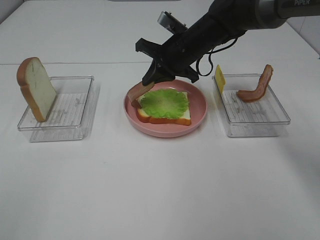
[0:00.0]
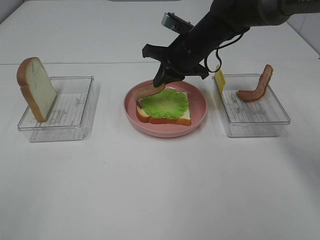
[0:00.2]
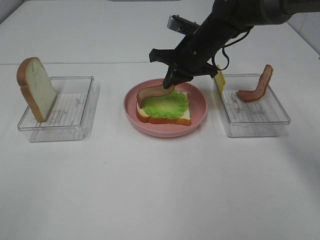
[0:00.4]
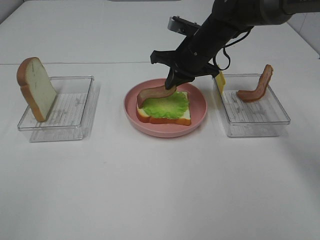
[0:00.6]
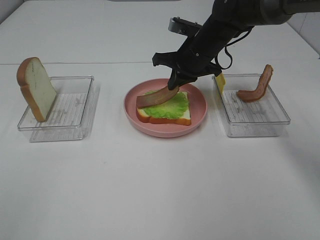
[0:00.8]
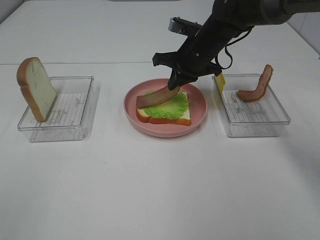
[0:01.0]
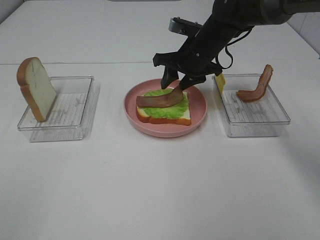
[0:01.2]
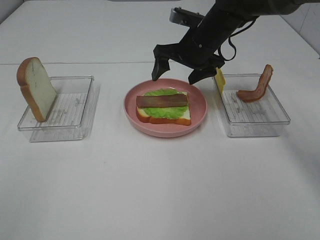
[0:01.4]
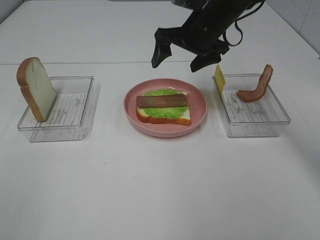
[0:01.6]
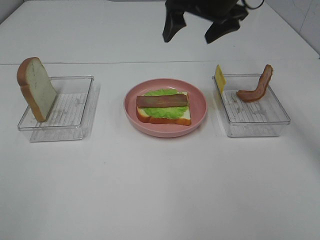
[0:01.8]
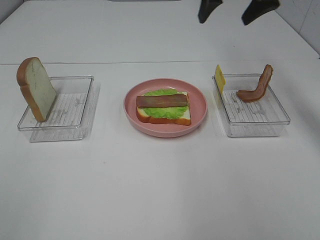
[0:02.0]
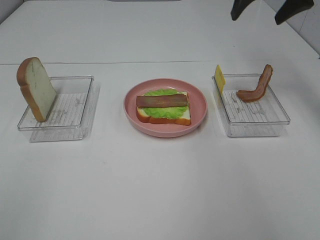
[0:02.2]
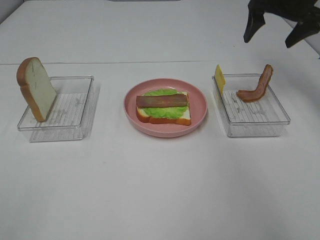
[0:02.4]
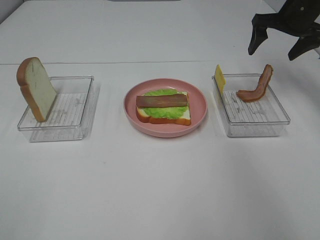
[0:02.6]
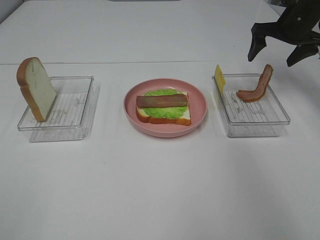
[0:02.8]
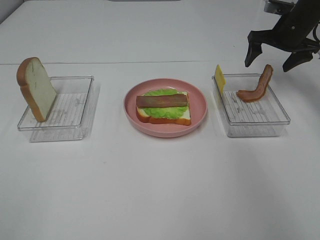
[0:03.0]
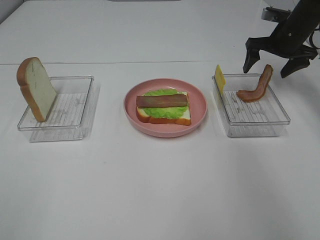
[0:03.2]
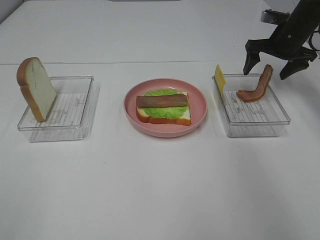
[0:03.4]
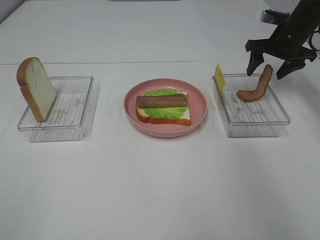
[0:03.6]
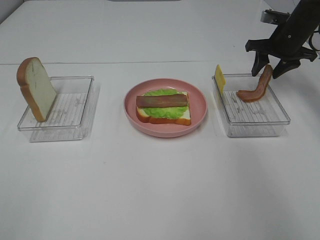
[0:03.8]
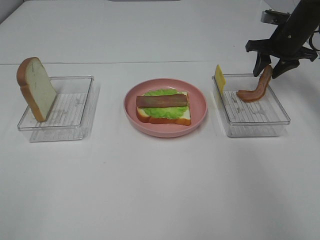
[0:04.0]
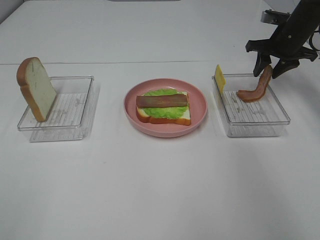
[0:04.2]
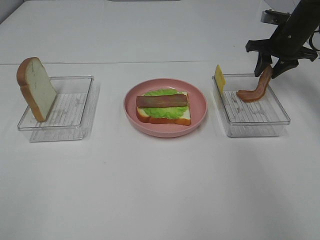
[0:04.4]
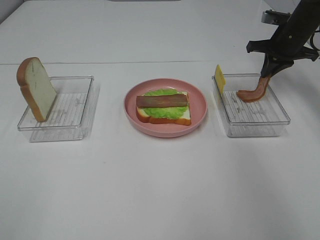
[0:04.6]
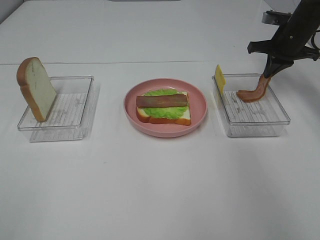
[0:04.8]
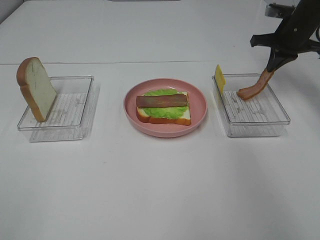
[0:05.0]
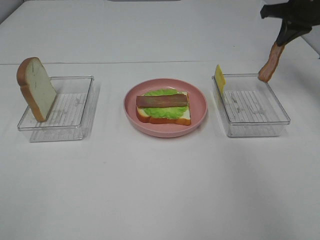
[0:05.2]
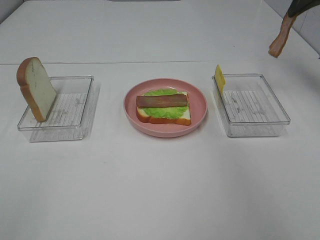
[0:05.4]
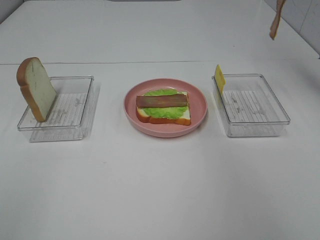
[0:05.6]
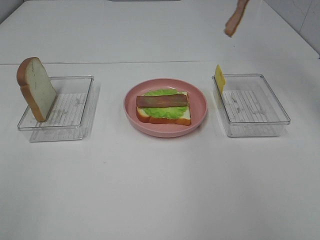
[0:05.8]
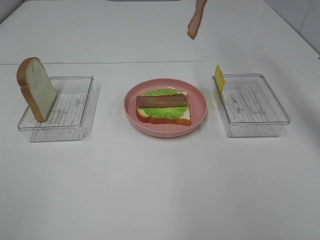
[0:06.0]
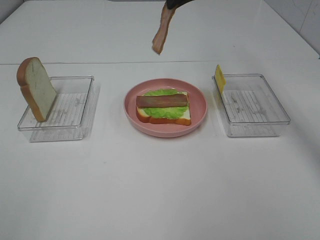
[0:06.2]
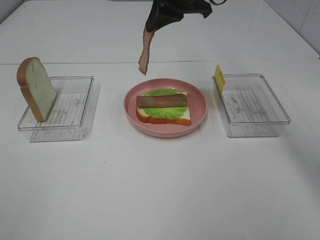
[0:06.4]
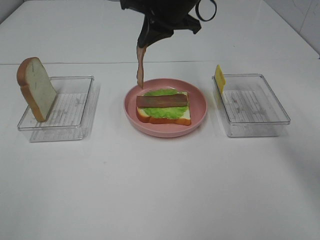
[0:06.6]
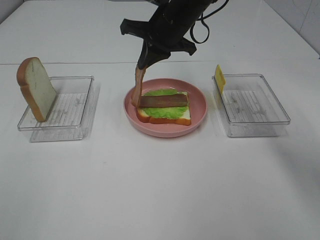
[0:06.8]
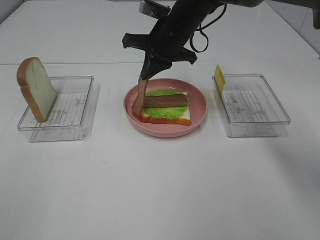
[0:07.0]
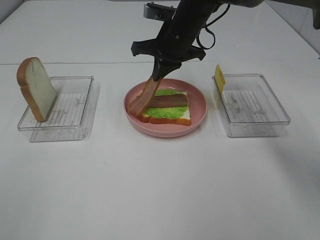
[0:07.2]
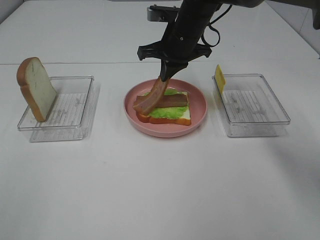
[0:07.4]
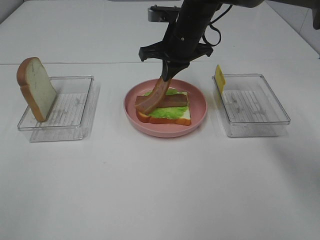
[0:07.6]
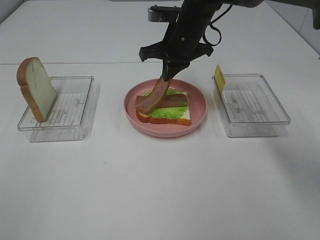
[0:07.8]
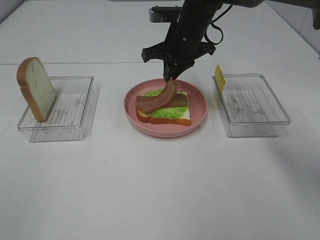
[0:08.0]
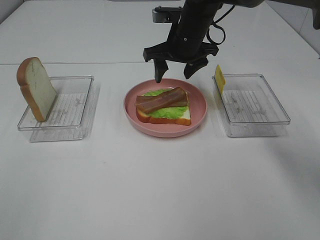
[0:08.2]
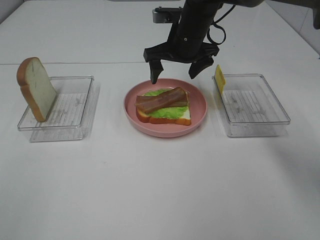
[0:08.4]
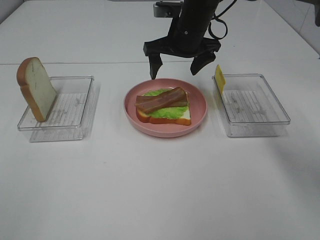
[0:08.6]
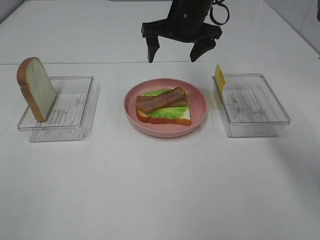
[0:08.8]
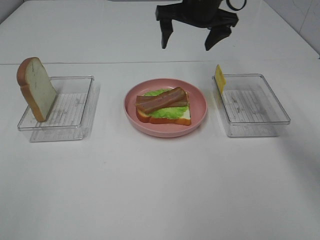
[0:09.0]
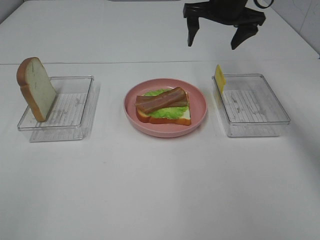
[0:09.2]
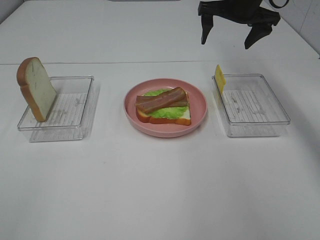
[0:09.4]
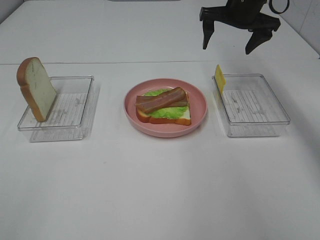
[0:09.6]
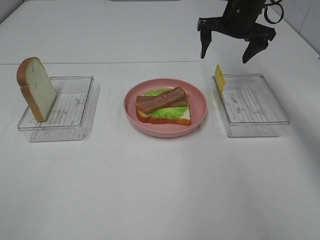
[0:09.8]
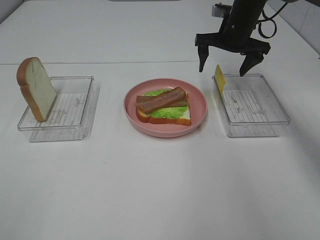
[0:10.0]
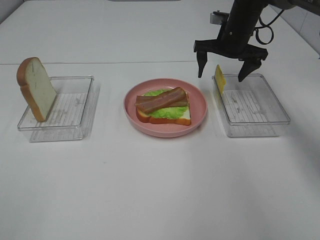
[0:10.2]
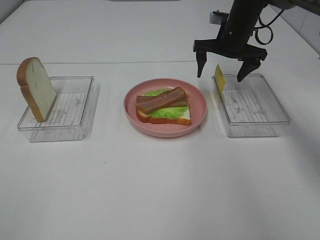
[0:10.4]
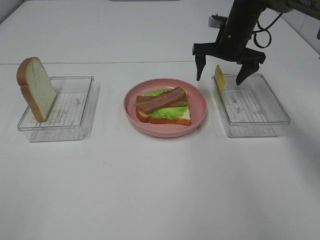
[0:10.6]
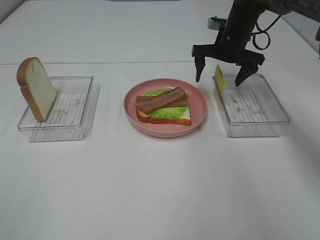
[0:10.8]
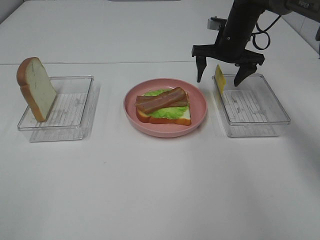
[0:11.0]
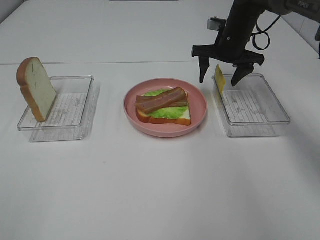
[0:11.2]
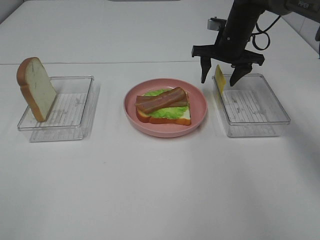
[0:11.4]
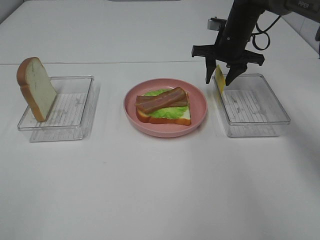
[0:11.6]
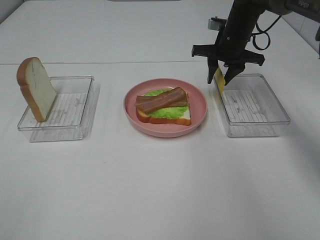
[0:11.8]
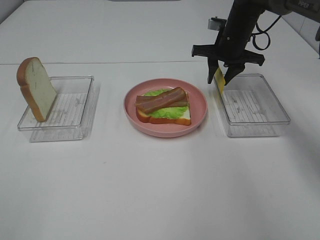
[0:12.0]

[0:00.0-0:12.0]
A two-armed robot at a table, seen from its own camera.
Task of the whole recording: Make sandwiches.
Step, 0:01.6 to 0:04.8: Right hand:grab the bacon.
Step, 0:05.0 to 0:08.8: Right hand:place bacon on bacon.
0:00.0 to 0:01.6: The right gripper shifts roughly 5 cm upward, and opens its fingers.
0:01.6 to 0:03.0: The right gripper heads to the right, covering about 20 cm.
0:03.0 to 0:04.4: The right gripper closes up.
0:04.4 to 0:06.0: The right gripper moves upward, to the left and backward, about 25 cm, and closes.
0:06.0 to 0:07.6: The right gripper moves downward and to the left, approximately 20 cm.
0:07.6 to 0:09.0: The right gripper heads upward, covering about 5 cm, and opens up.
0:09.0 to 0:10.4: The right gripper shifts approximately 10 cm downward and to the right.
0:10.4 to 0:12.0: The right gripper closes up.

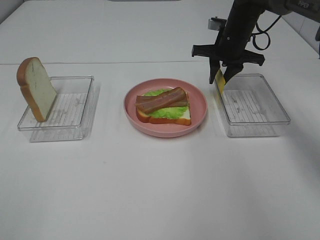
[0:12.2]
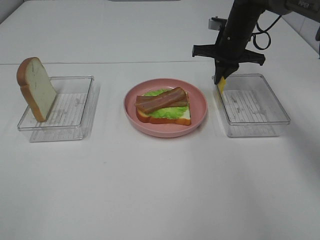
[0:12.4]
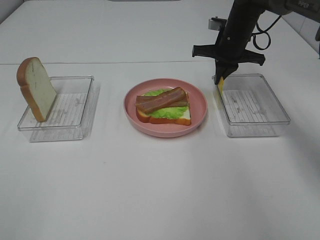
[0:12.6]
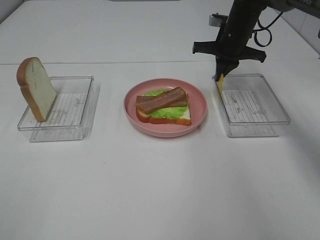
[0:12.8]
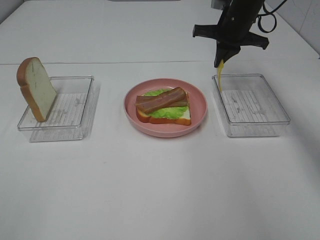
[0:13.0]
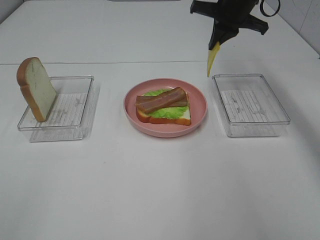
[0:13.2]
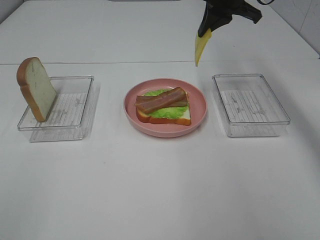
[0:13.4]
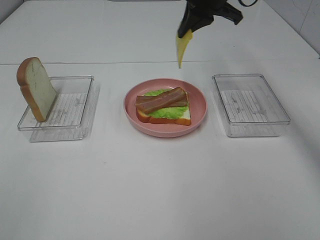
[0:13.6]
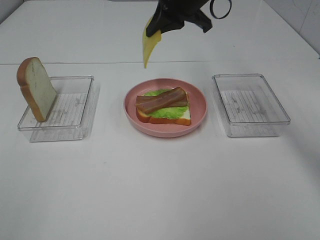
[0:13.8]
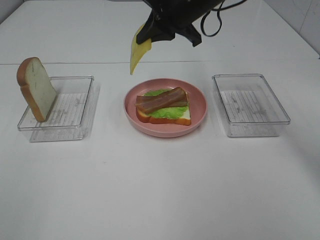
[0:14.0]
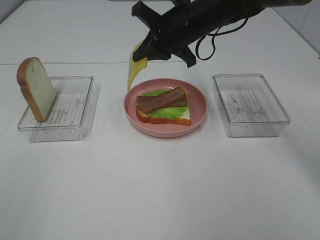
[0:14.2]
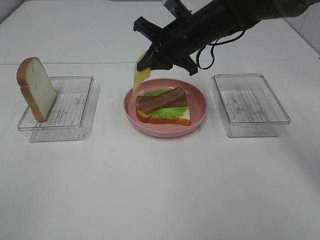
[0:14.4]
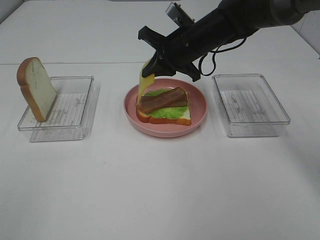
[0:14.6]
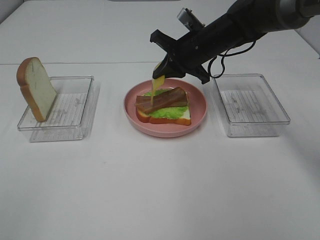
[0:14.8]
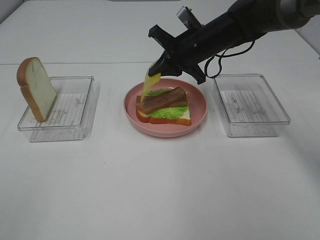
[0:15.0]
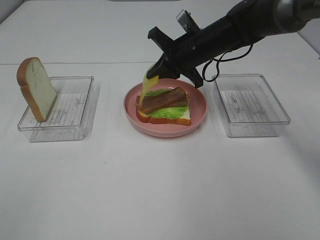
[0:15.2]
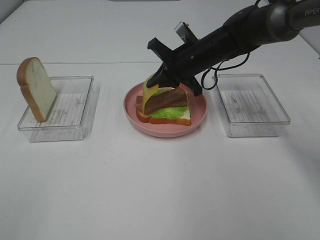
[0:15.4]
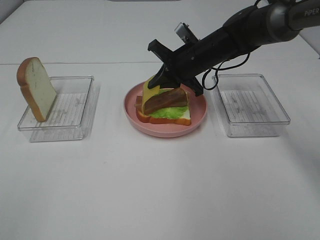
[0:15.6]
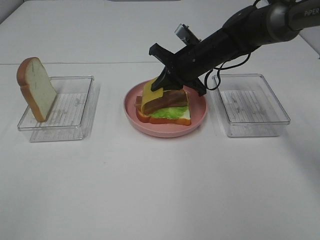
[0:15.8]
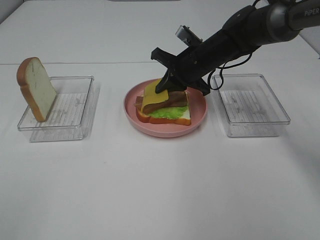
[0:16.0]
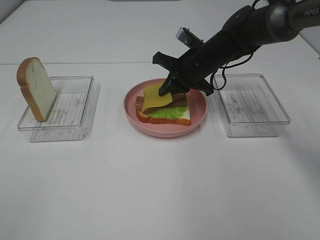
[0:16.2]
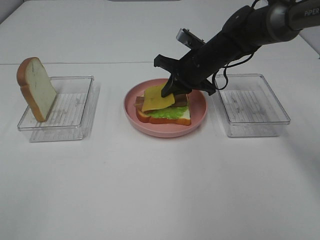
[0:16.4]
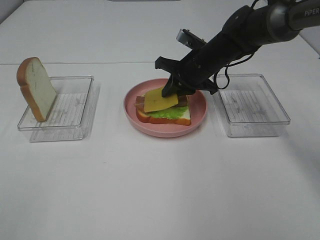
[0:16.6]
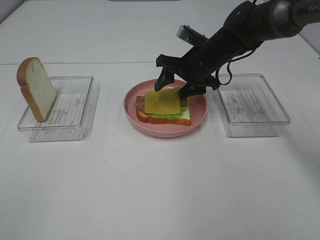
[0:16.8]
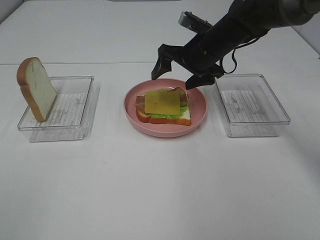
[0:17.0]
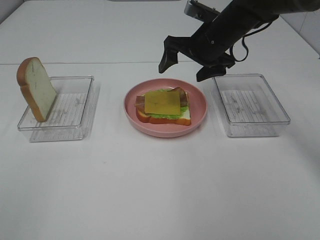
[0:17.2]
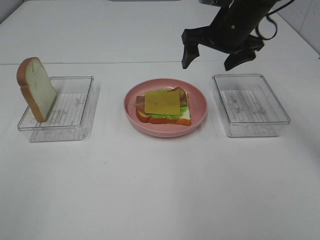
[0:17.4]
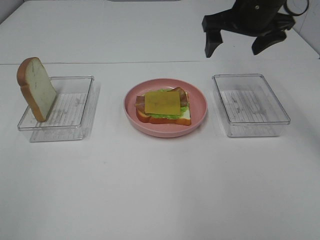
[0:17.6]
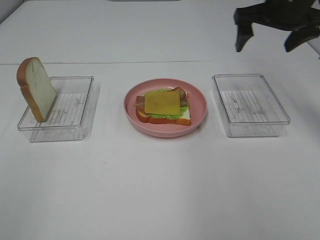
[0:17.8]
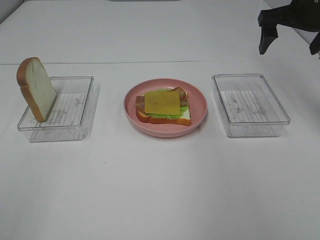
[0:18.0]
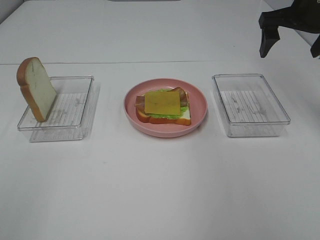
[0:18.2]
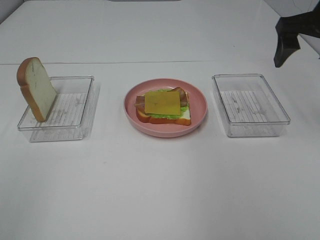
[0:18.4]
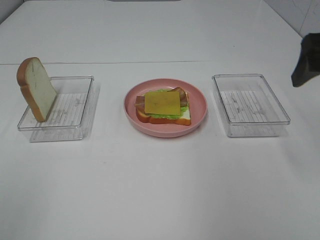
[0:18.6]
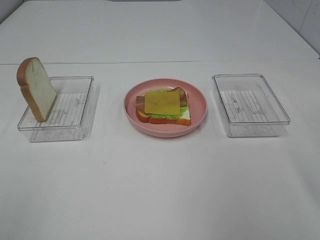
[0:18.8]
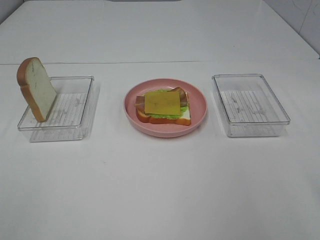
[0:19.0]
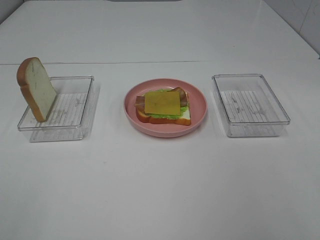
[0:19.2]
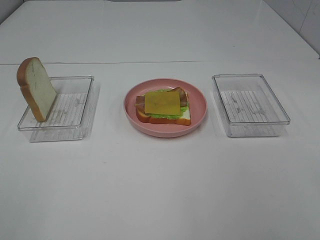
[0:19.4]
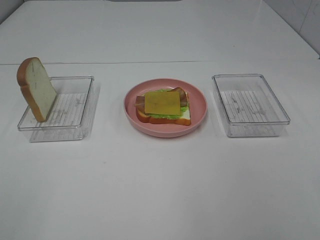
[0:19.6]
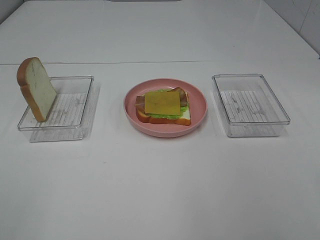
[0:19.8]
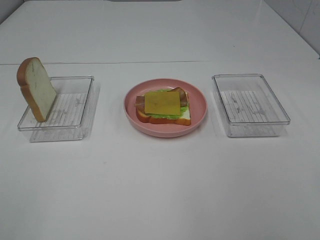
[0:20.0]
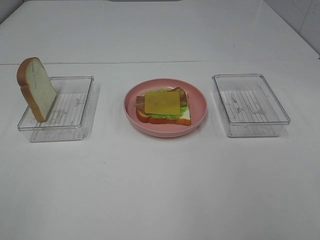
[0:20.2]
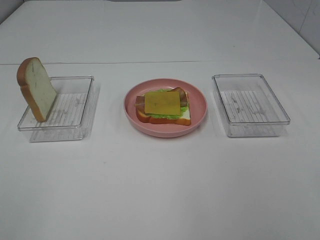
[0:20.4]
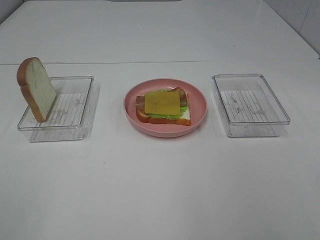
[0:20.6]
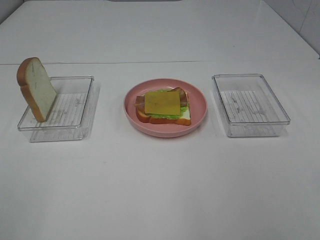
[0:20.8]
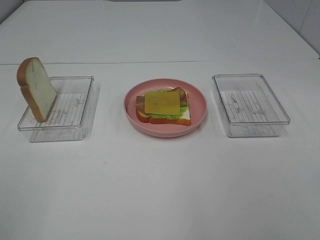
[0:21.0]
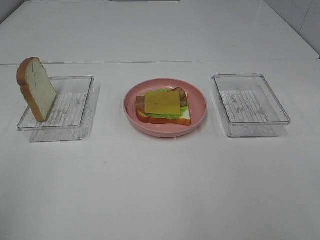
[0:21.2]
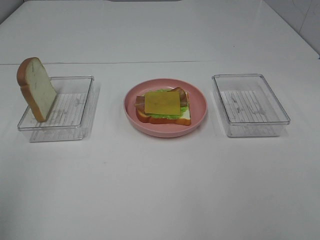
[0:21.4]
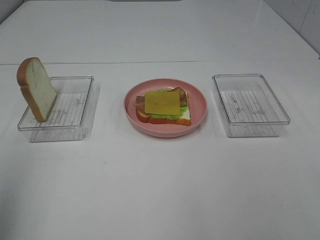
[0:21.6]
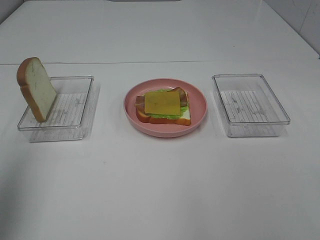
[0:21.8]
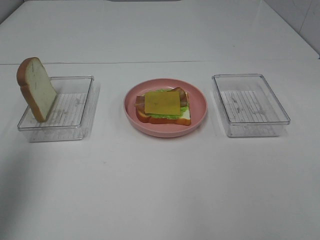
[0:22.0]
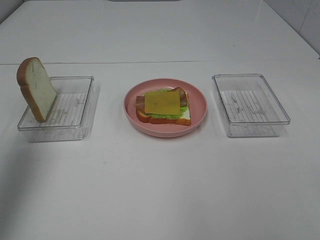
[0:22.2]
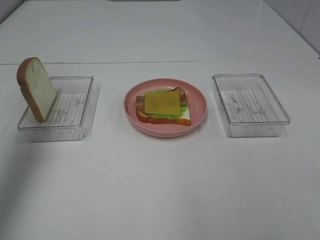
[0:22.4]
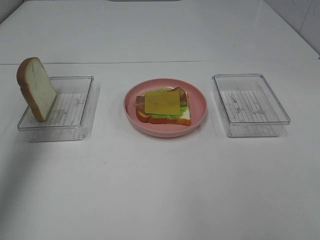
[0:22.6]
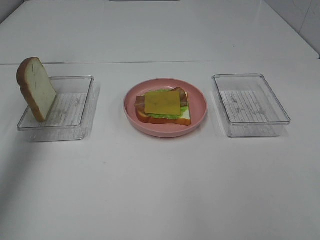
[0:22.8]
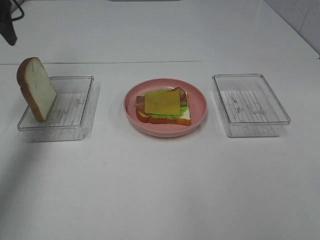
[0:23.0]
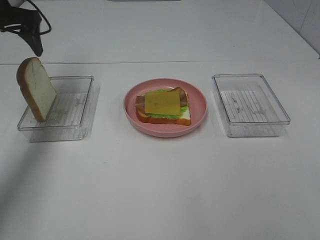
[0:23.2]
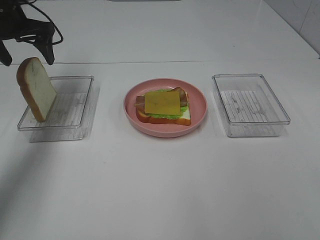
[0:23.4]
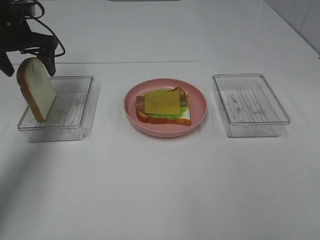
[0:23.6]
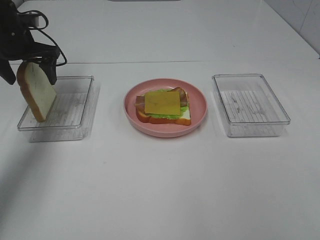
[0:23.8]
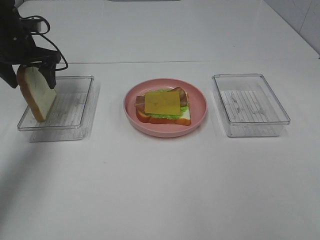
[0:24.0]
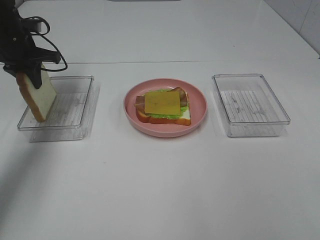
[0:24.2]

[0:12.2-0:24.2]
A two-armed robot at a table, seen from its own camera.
Task of the whole recording: Make sandwiches.
Step, 0:12.4 to 0:17.0: Right hand:place the cheese slice on top of the bacon.
Step, 0:17.2 to 0:24.0: Right hand:grab the bread slice.
0:12.2 to 0:13.8: The right gripper goes some 15 cm upward, to the left and backward.
0:13.8 to 0:15.2: The right gripper travels downward by some 10 cm.
0:15.2 to 0:16.6: The grippers stay close to where they were, moving slightly.
0:16.6 to 0:18.2: The right gripper moves to the right and upward, approximately 20 cm, and opens its fingers.
0:18.2 to 0:19.8: The right gripper moves backward, some 40 cm.
0:21.2 to 0:22.6: The left gripper shifts roughly 30 cm forward.
0:22.6 to 0:24.2: The left gripper heads downward and forward, covering some 20 cm, and closes.
